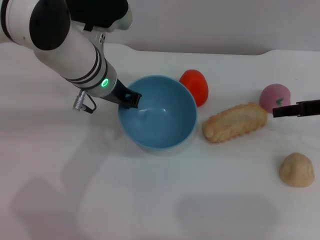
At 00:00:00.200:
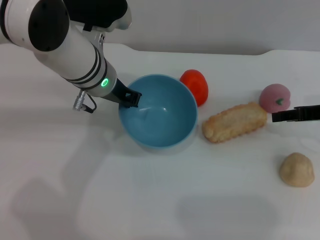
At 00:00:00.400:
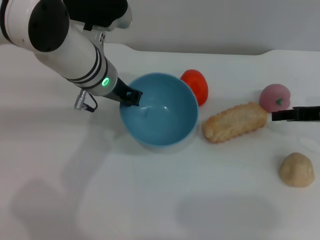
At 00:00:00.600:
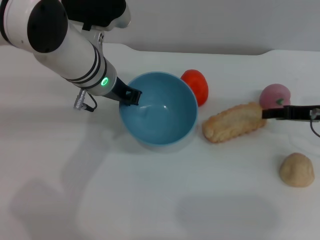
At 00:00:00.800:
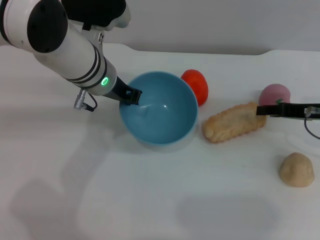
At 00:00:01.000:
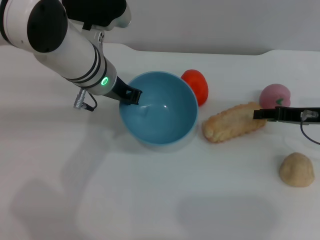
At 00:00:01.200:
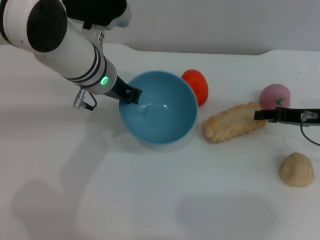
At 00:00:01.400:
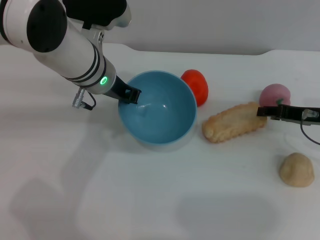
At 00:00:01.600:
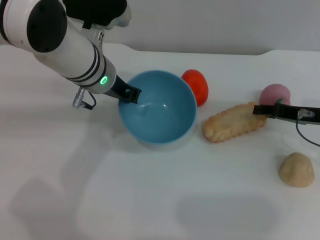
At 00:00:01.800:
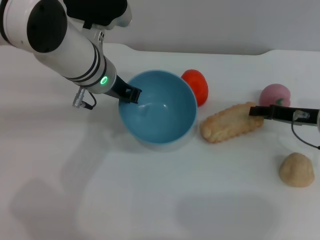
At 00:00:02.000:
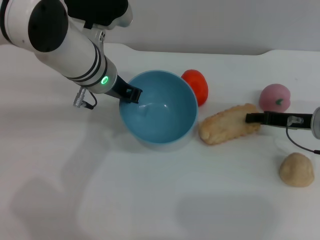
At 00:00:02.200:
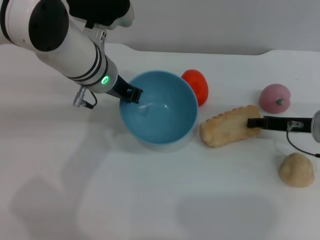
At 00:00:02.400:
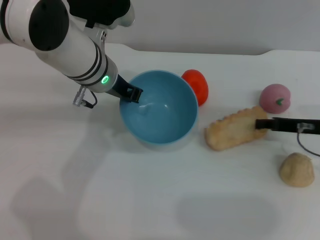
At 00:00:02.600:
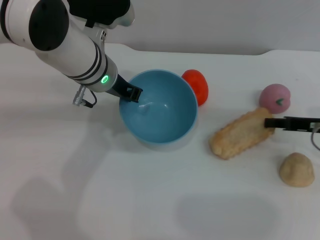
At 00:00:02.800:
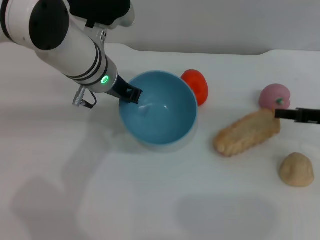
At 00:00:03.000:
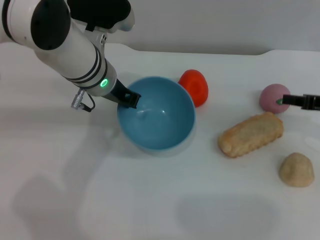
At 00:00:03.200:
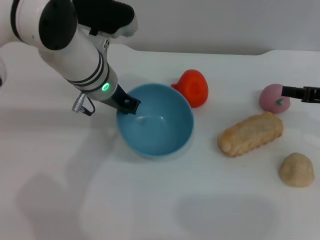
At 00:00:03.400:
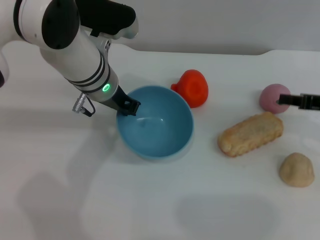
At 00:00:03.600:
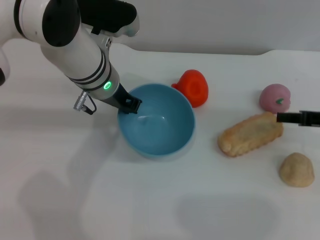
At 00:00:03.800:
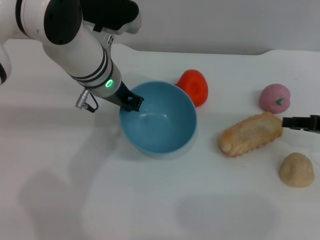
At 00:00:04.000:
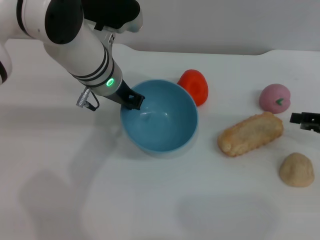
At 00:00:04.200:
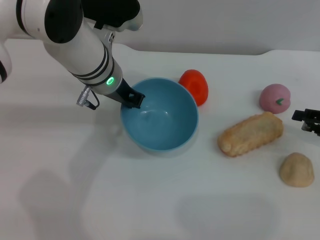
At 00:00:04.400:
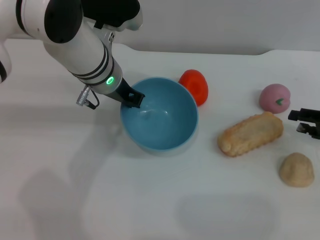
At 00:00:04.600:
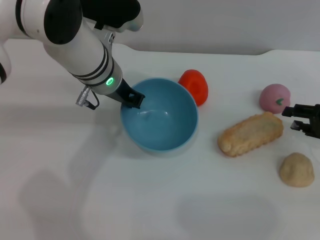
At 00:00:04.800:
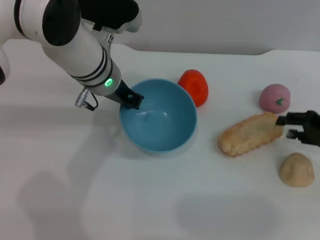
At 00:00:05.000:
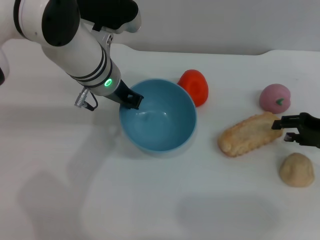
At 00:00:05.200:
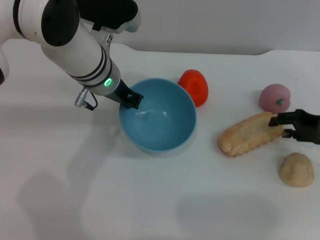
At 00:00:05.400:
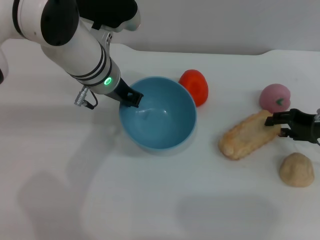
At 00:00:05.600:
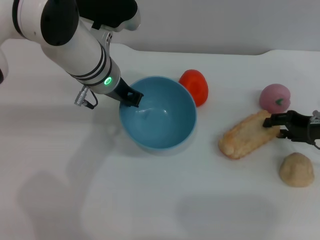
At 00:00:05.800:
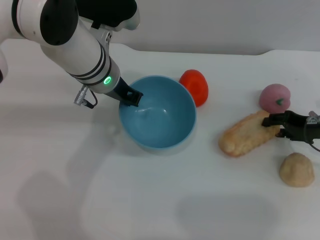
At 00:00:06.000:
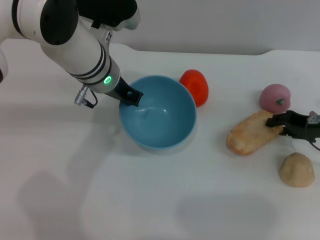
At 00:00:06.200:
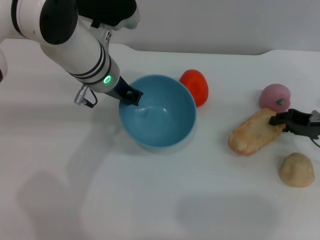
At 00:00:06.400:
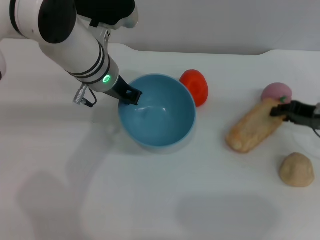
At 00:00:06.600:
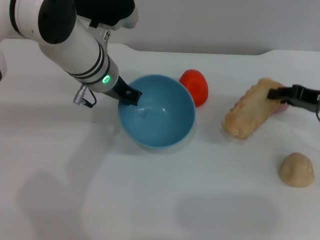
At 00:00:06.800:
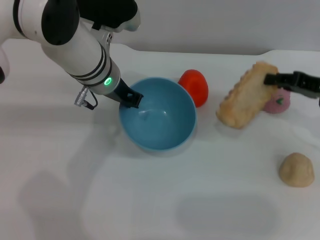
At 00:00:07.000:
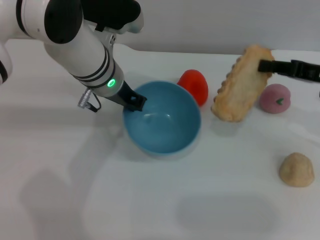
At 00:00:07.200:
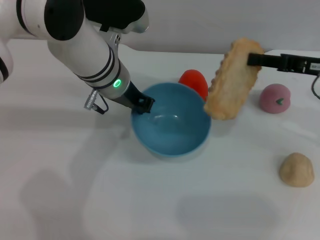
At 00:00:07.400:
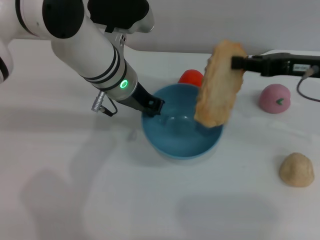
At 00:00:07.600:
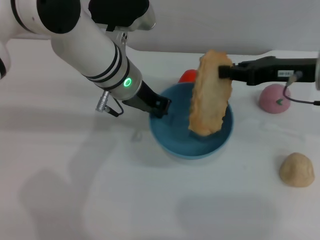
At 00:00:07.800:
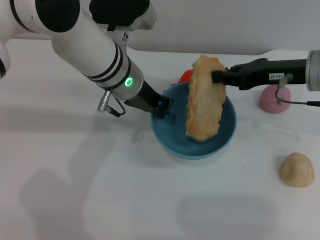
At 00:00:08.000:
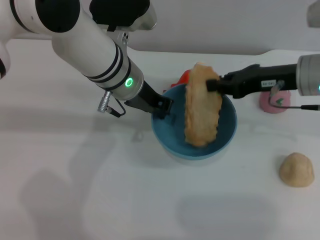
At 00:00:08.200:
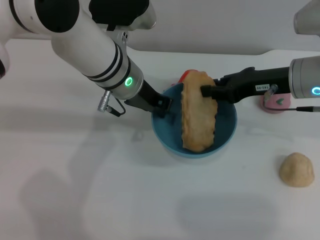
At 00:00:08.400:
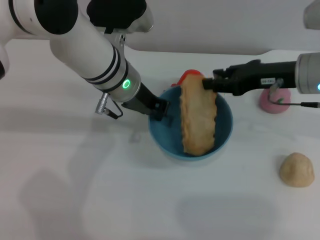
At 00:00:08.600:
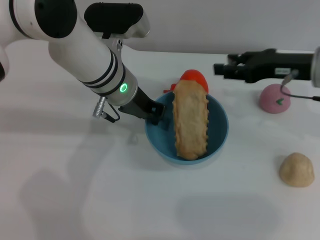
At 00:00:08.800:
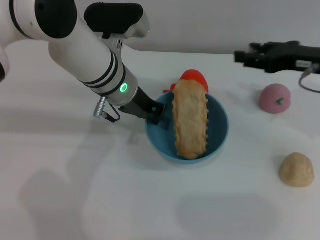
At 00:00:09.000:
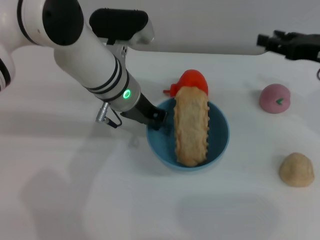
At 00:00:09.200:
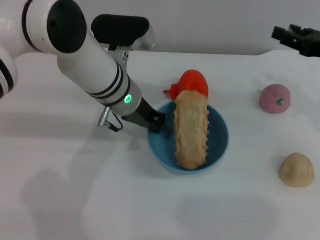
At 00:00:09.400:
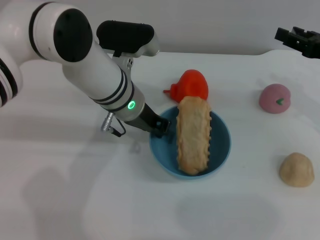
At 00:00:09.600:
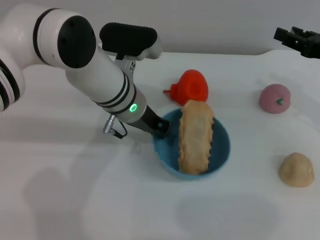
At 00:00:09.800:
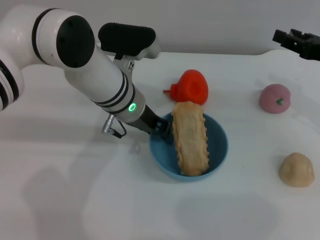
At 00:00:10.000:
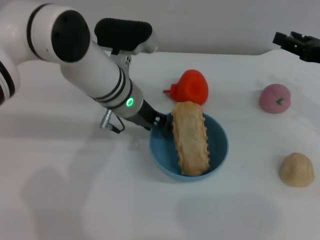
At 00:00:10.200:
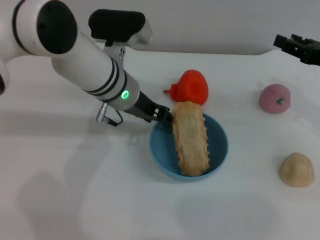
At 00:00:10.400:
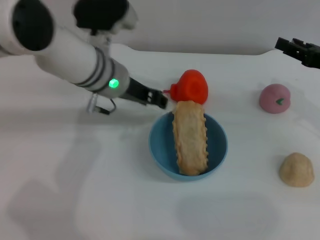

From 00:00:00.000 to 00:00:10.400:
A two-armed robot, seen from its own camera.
Task of the whole recording: put the bread into the blue bowl and pour it out repeatedly.
Step, from 00:00:00.000 to 00:00:06.800: Pick up the bread with the right gripper.
Step, from 00:00:07.000 to 00:00:08.800: Place the bread into the bowl.
From 00:00:00.000 to 00:00:01.400: The right gripper goes approximately 5 cm downward.
From 00:00:01.400 to 00:00:03.000: The right gripper moves about 5 cm, and closes up.
From 00:00:03.000 to 00:00:04.400: The right gripper ends up some 5 cm from where it was, and opens.
From 00:00:04.400 to 00:00:06.000: The right gripper heads to the left, covering approximately 5 cm.
From 00:00:06.000 to 00:00:07.400: The right gripper goes approximately 10 cm upward, and closes.
From 00:00:07.400 to 00:00:09.000: The right gripper travels to the left and back again, roughly 5 cm each way, and opens its fingers.
From 00:00:09.000 to 00:00:10.400: The left gripper opens up.

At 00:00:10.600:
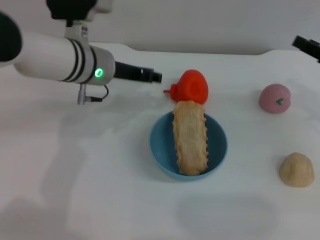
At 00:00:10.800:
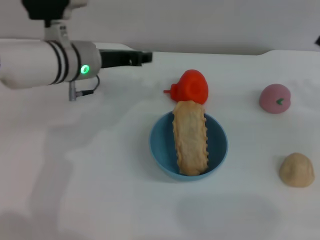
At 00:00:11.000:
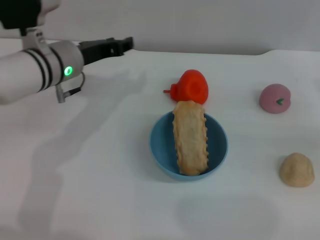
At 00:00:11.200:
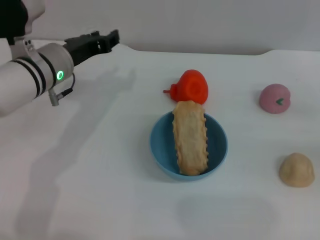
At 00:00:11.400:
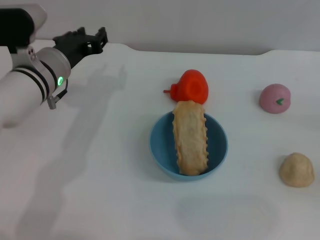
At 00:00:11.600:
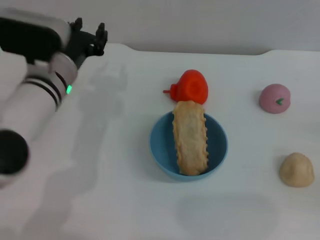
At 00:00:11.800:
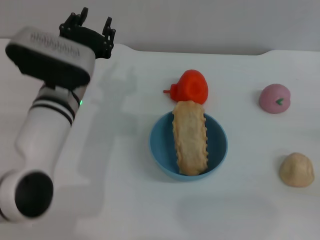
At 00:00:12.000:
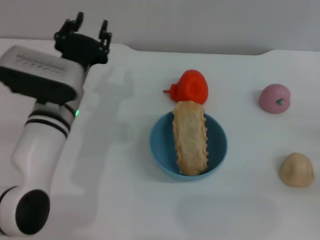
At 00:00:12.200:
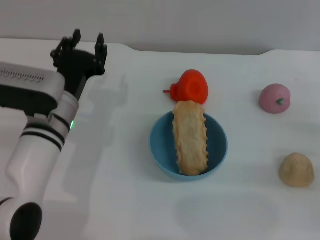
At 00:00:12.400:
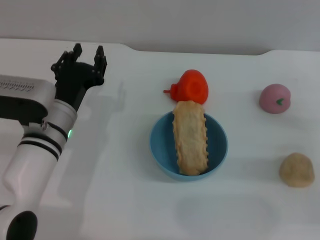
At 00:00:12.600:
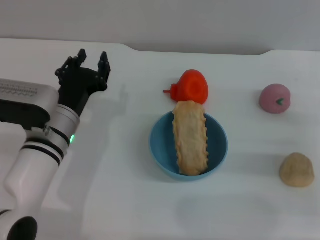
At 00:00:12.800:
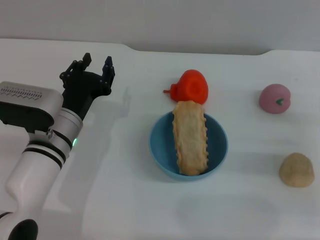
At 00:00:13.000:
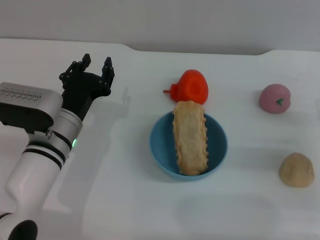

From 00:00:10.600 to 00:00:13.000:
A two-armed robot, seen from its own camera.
Task of the whole recording: put the bread into the blue bowl and pour it out repeatedly.
From 00:00:10.600 to 00:00:11.800: The right gripper goes about 15 cm backward, to the right and downward, while the left gripper travels backward by some 5 cm.
From 00:00:11.800 to 00:00:13.000: The left gripper shifts approximately 5 cm downward. Meanwhile the right gripper travels to the left by about 10 cm.
